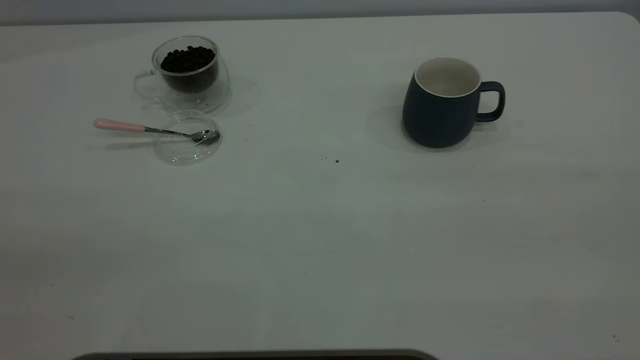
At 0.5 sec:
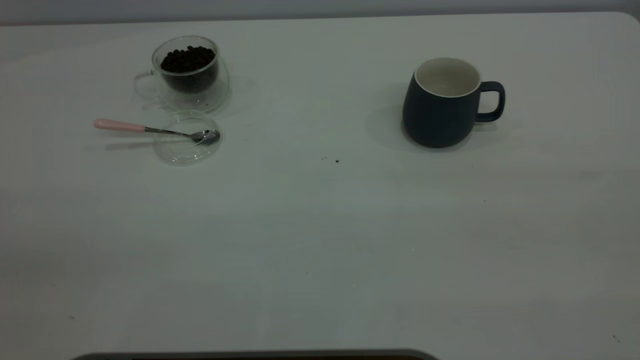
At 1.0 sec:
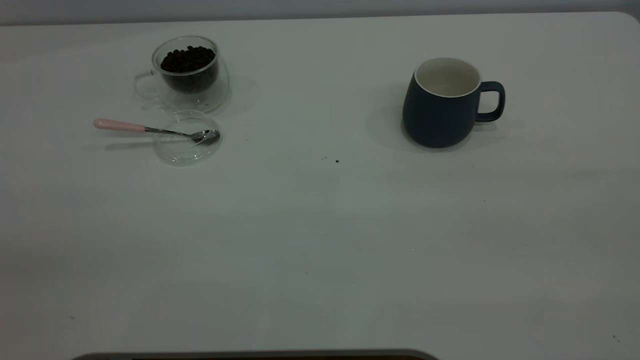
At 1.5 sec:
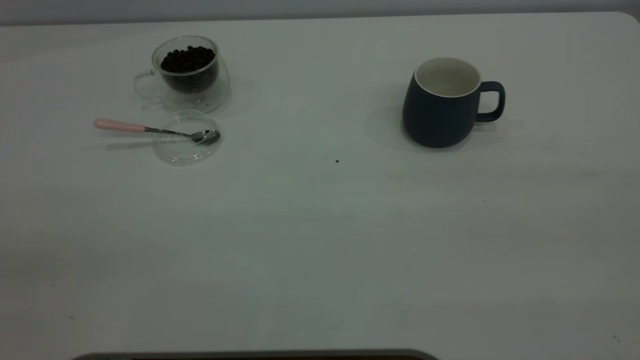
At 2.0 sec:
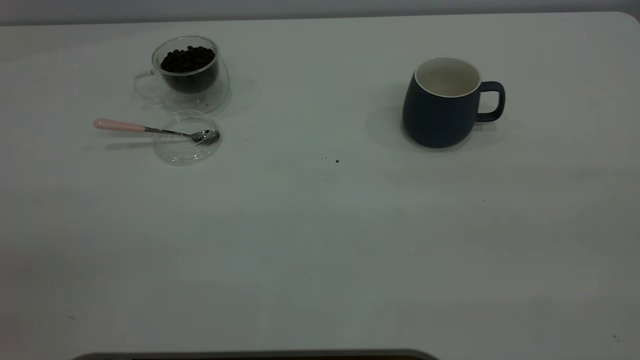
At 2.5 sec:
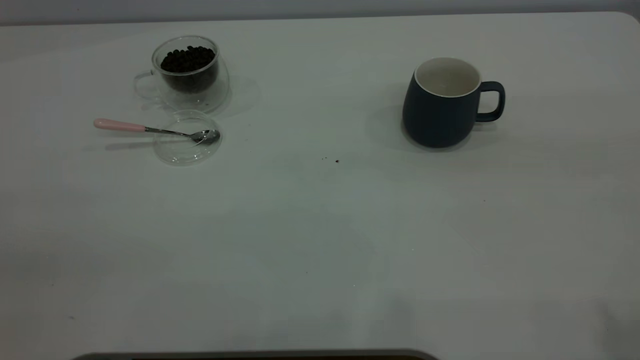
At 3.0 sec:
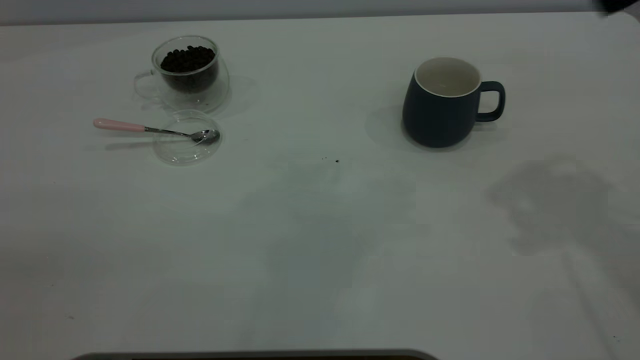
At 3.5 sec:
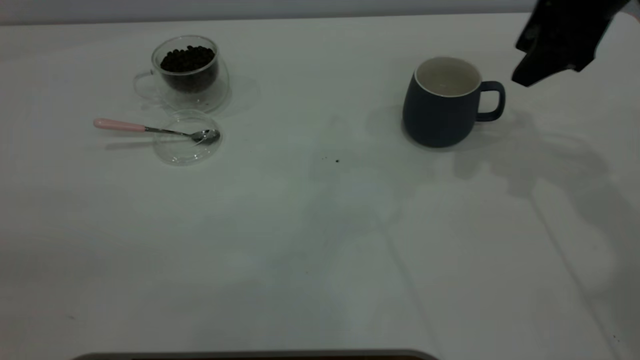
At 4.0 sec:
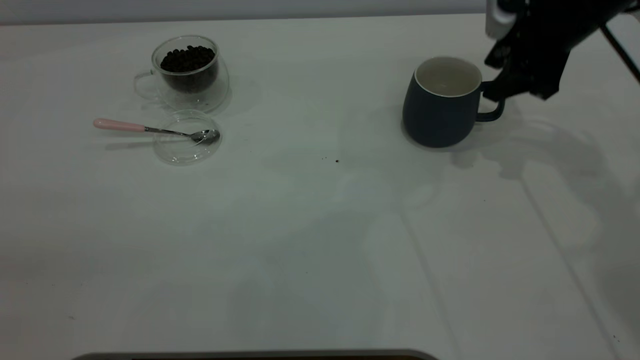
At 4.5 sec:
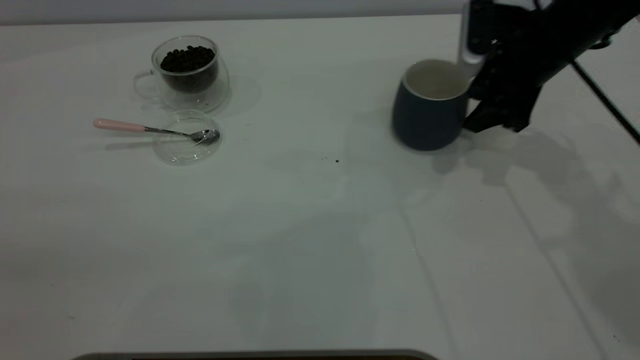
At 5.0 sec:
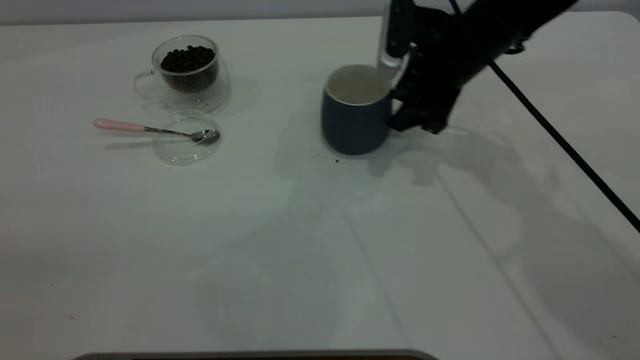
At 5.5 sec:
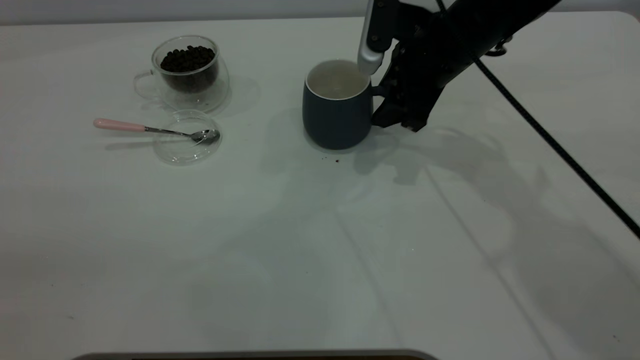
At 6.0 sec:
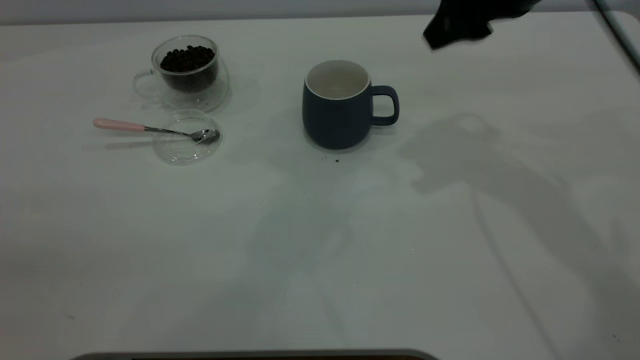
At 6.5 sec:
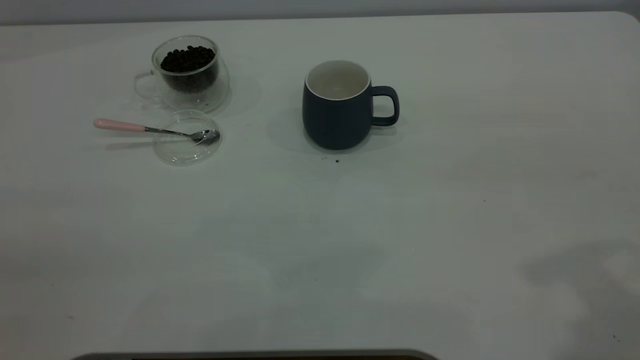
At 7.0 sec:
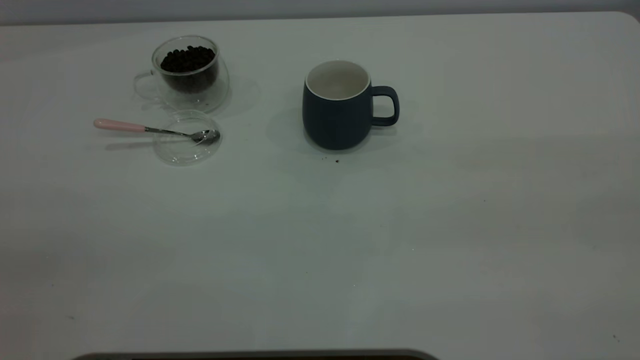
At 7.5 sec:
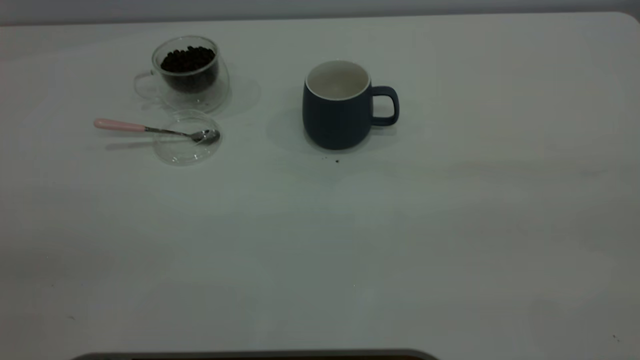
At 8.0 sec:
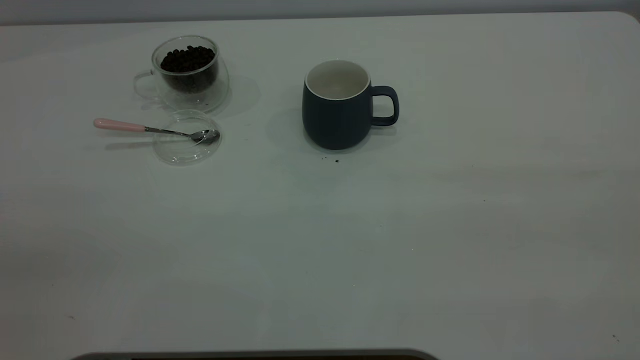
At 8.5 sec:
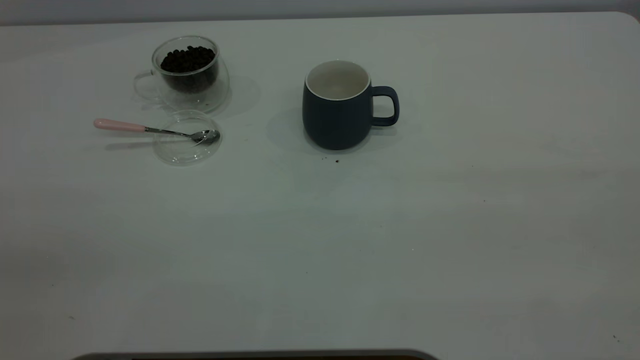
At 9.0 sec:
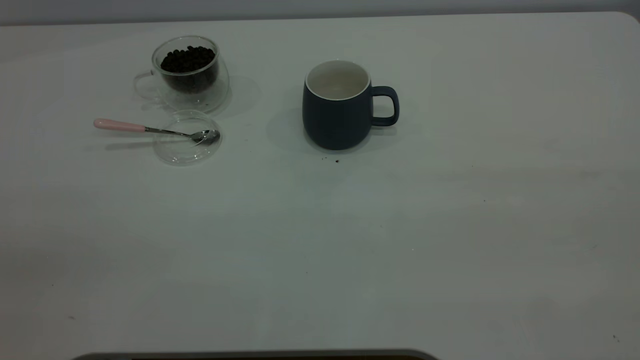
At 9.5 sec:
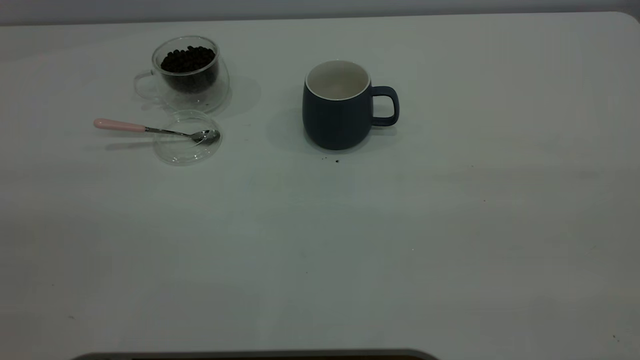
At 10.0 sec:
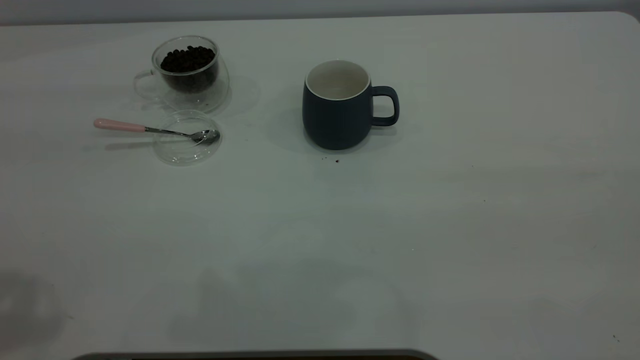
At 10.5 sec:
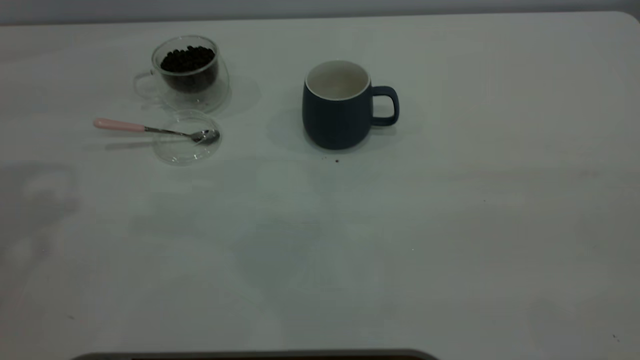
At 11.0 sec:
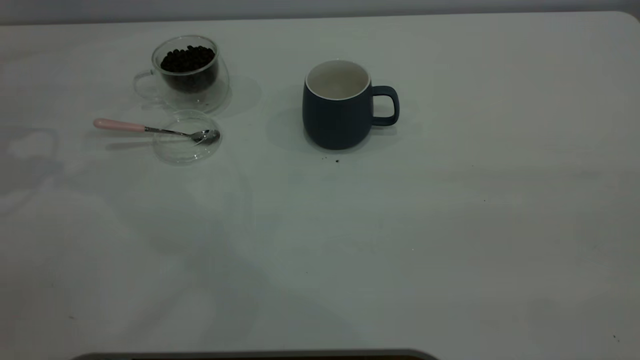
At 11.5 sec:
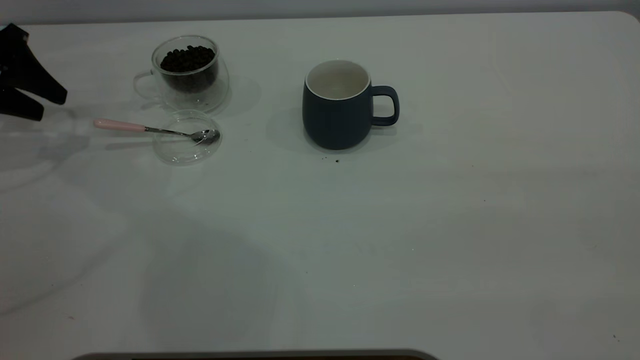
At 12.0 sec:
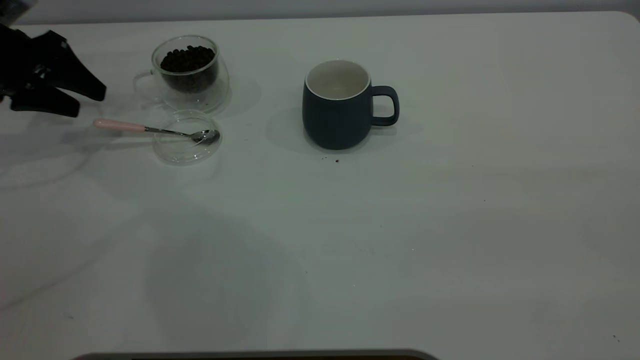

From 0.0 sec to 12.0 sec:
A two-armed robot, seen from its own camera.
Task of the whole recording: the right gripper place the grey cup in the center of the table, the left gripper take the pink spoon from the cup lid and scoop out the coffee beans from the coffee cup and put them into the grey cup, the left gripper put the spoon back into the cup lid.
Step, from 0.0 sec to 5.5 sec: Move the cup to the center of view.
From 0.0 sec to 2.0 sec: Both grippers stay about where they are.
From 2.0 sec to 4.0 sec: The right gripper goes about 50 cm forward and downward, and opens, then closes again.
From 4.0 sec to 6.0 sec: The right gripper moves upward, to the left and backward, about 15 cm, and closes up.
From 6.0 sec to 8.0 sec: The right gripper is displaced backward by some 35 cm.
From 10.0 sec to 12.0 sec: The left gripper travels forward and downward by roughly 35 cm.

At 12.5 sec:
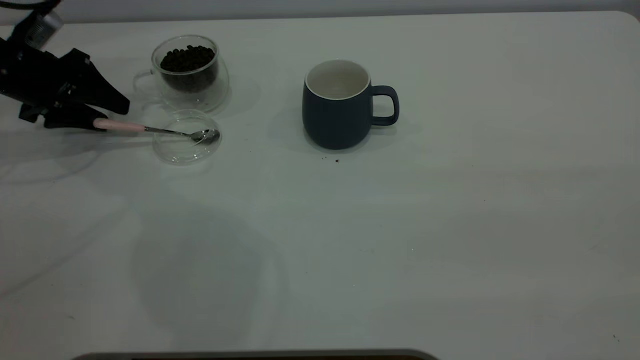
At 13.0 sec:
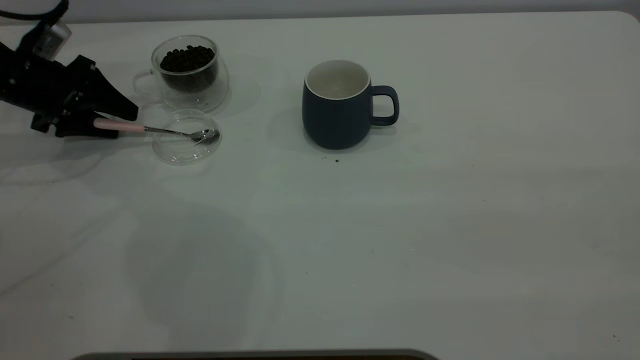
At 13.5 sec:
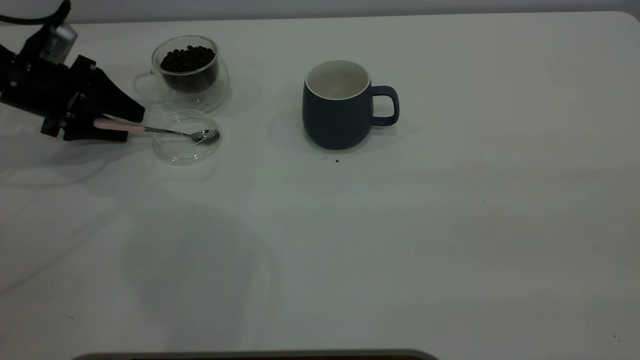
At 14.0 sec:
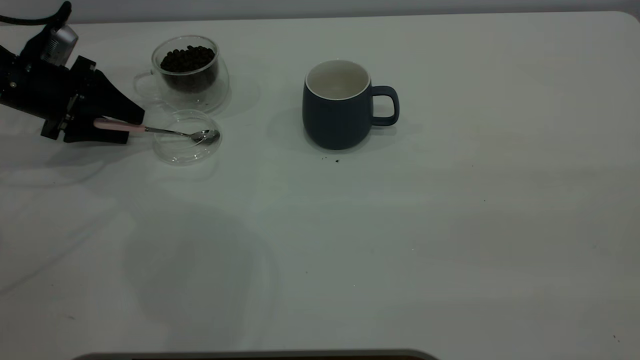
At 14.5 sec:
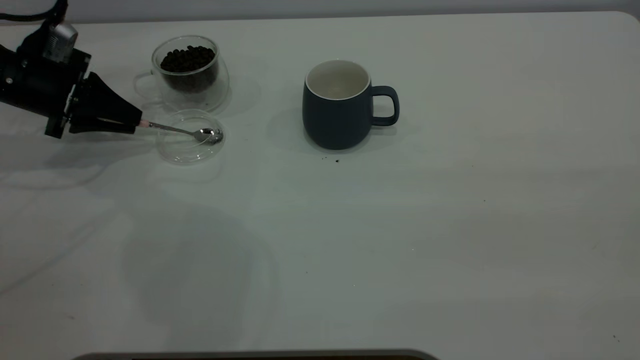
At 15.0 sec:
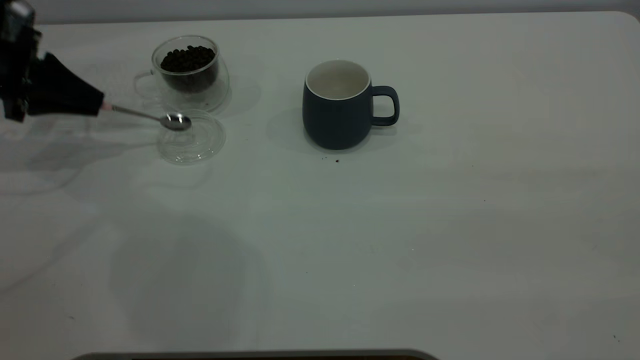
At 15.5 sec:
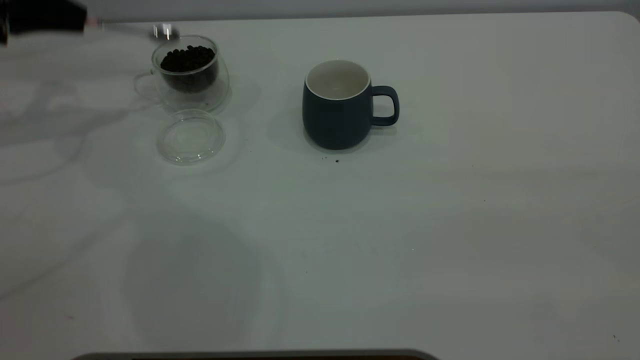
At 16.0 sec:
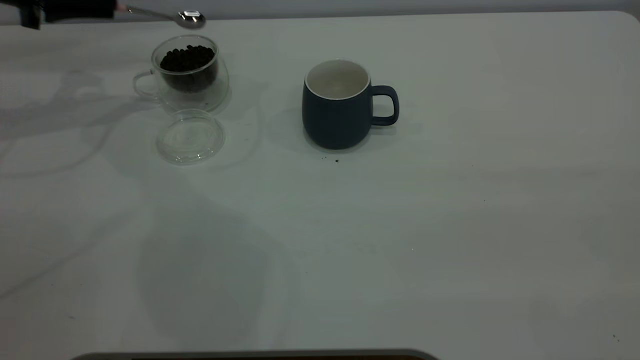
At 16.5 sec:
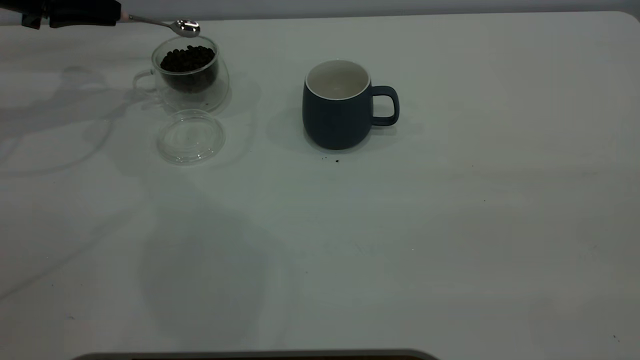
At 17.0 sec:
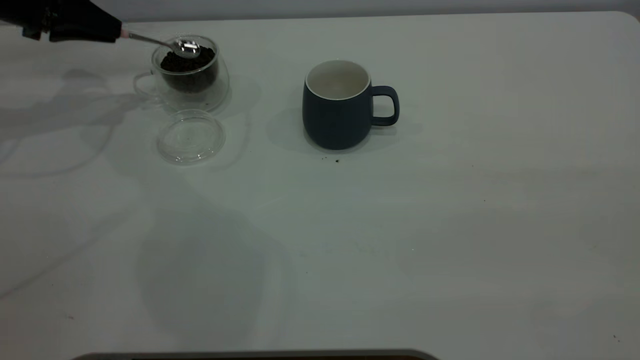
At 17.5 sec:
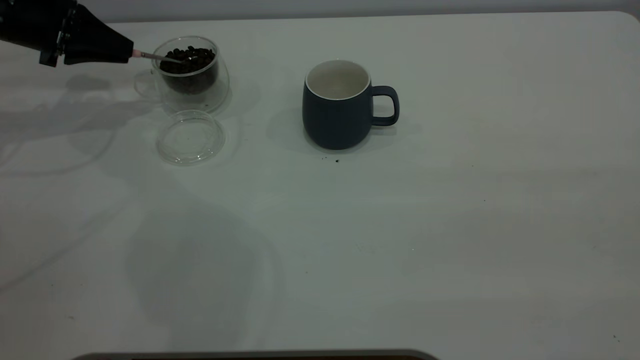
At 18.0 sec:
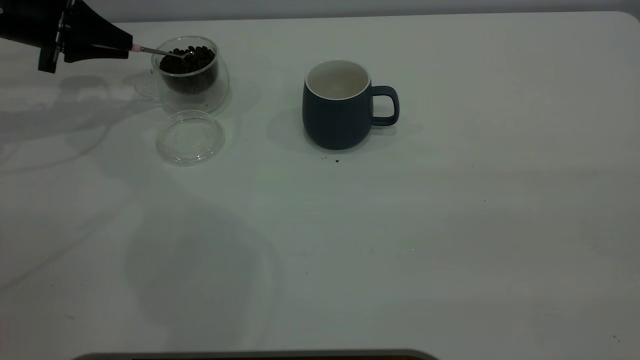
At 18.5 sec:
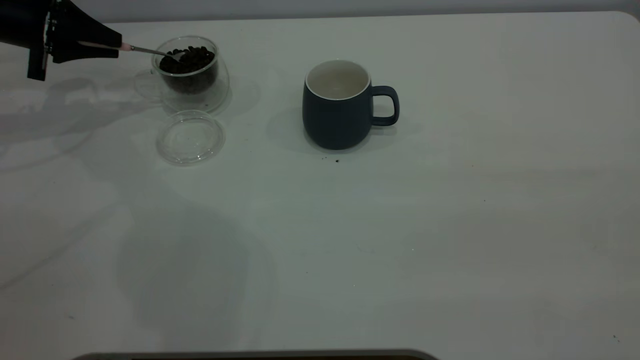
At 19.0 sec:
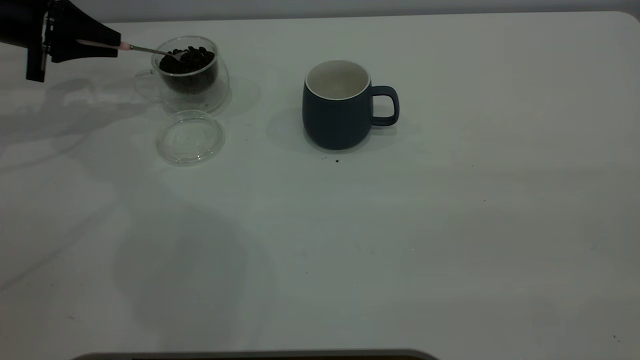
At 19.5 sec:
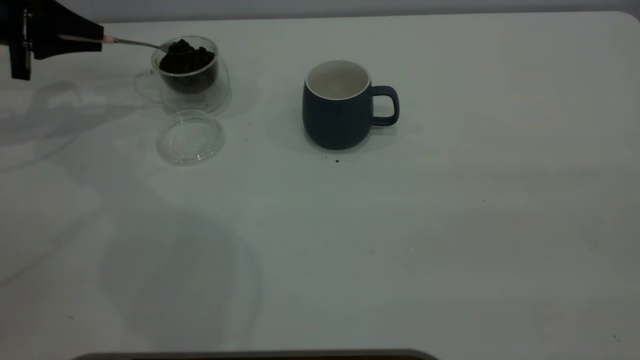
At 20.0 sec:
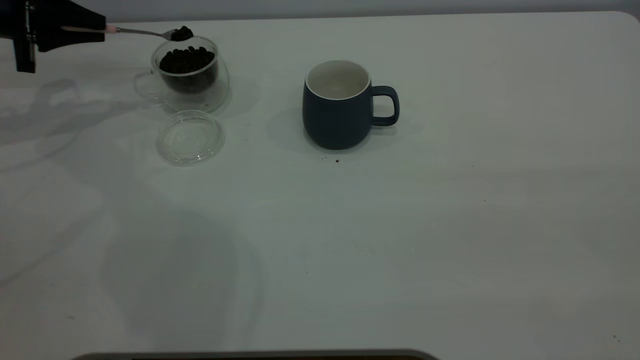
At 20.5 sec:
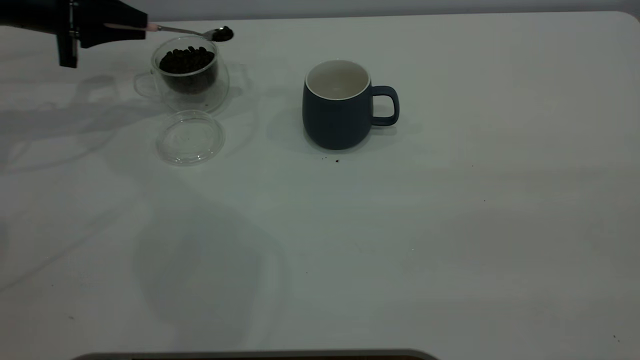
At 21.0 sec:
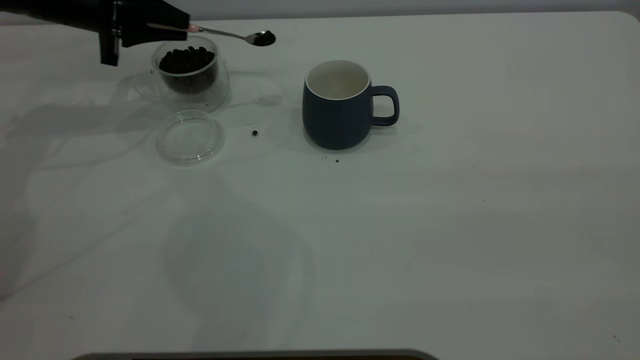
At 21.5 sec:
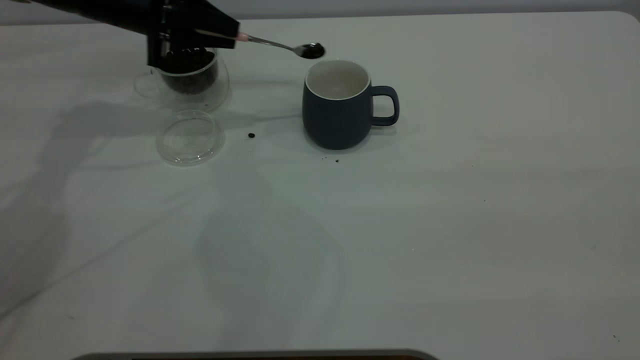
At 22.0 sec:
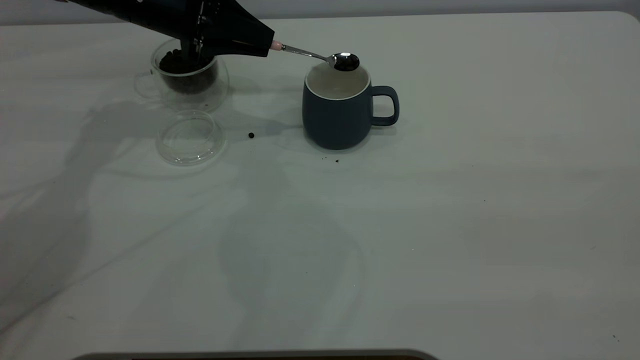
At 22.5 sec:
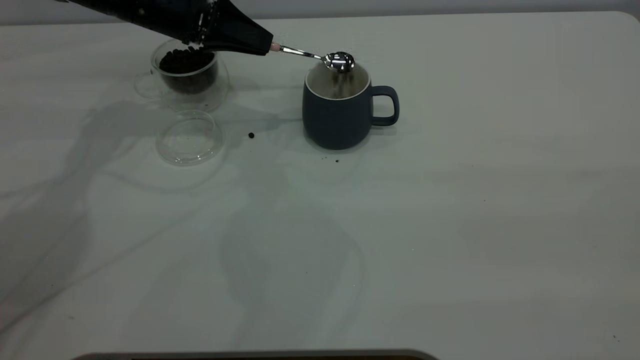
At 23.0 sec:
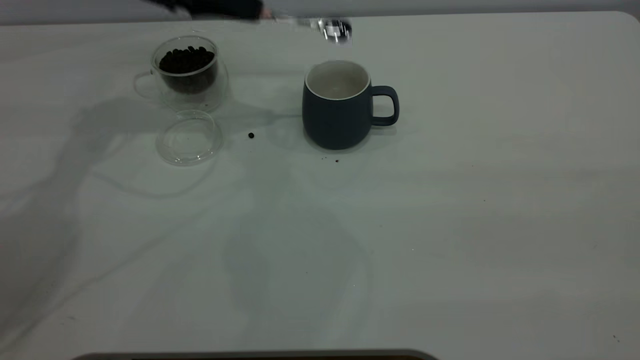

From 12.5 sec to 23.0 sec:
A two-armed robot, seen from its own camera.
Task of the whole recording: the right gripper place the grey cup in the center of the table, the left gripper take the pink spoon from the cup lid and scoop out the coffee beans from the coffee cup and put them into the grey cup, the left gripper put the spoon back into the cup lid.
Step, from 12.5 sec to 15.0 sec: Pick up the spoon.
Step, from 15.5 sec to 22.5 sec: Scoop a spoonful of beans into the cup.
From 12.5 sec to 14.5 sec: The left gripper closes up.
From 14.5 sec to 16.5 sec: The left gripper shifts approximately 10 cm upward and forward.
From 19.0 sec to 21.0 sec: The left gripper shifts about 10 cm to the right.
From 21.0 sec to 23.0 sec: The left gripper heads to the right and upward, covering approximately 10 cm.
